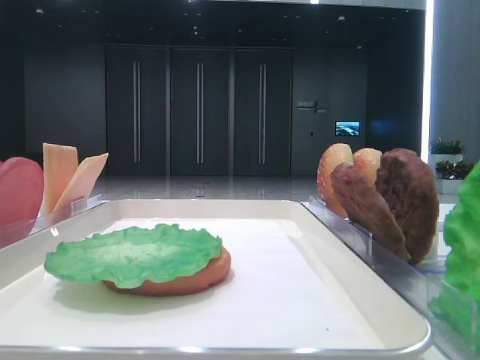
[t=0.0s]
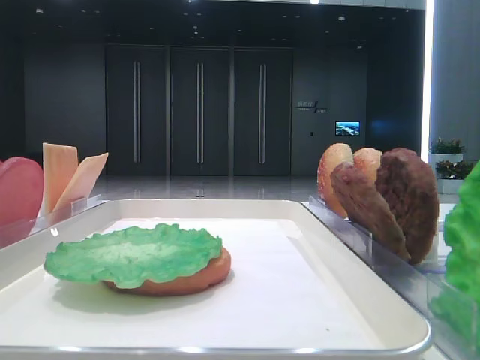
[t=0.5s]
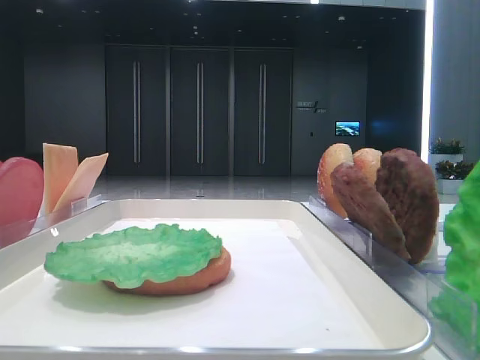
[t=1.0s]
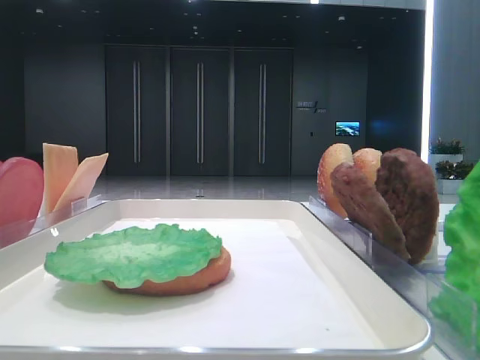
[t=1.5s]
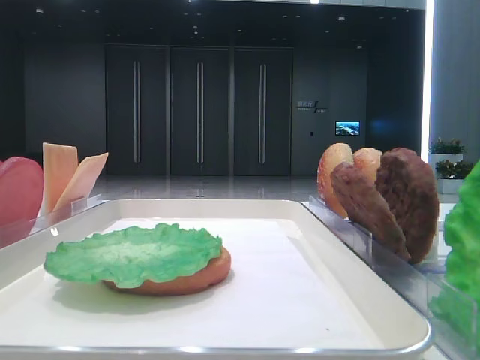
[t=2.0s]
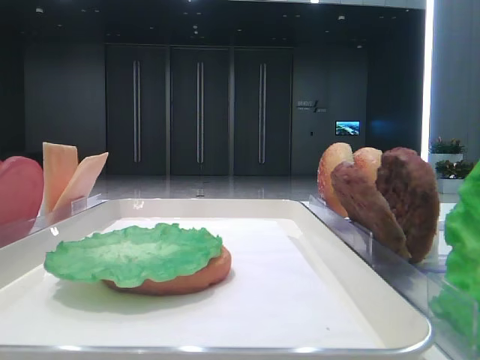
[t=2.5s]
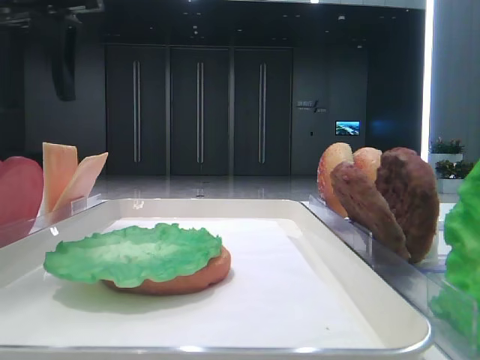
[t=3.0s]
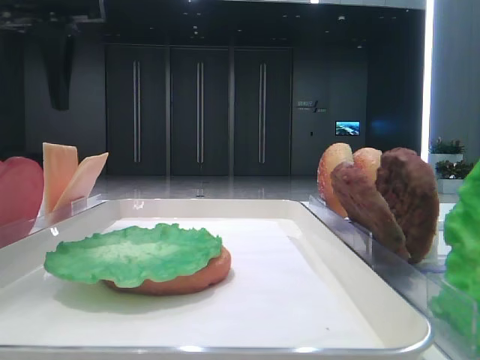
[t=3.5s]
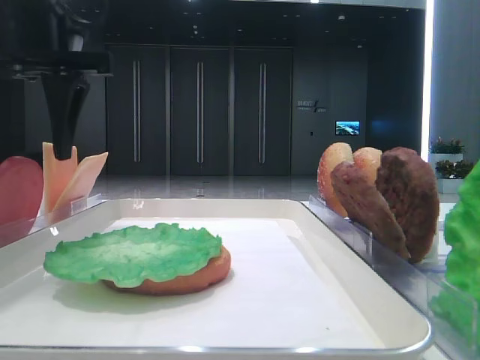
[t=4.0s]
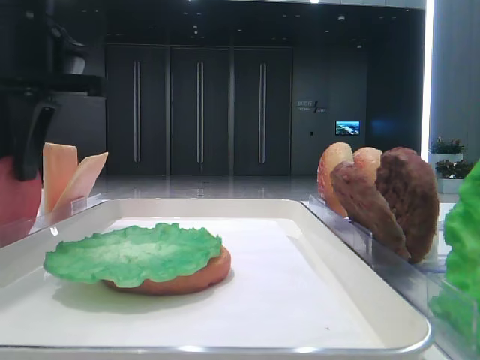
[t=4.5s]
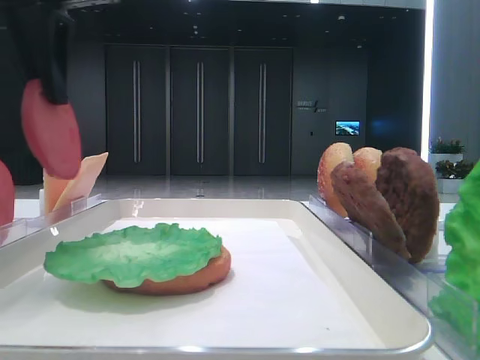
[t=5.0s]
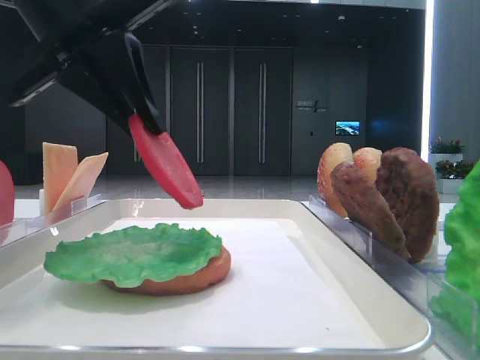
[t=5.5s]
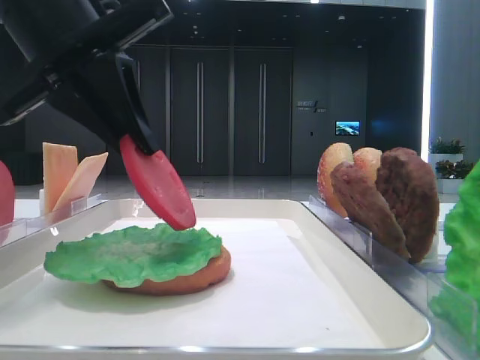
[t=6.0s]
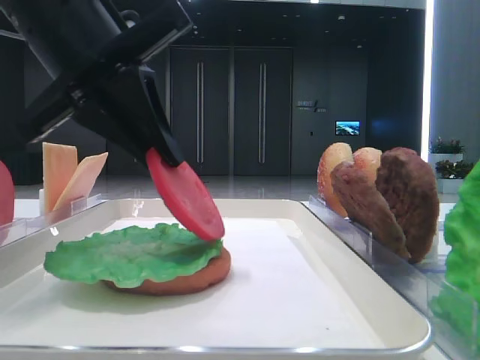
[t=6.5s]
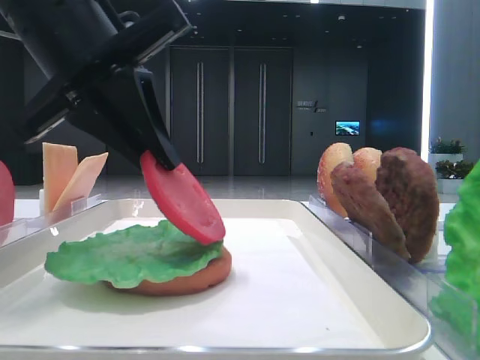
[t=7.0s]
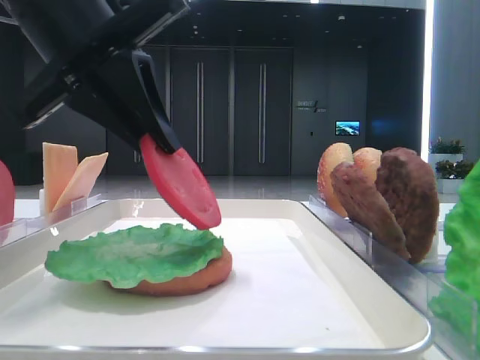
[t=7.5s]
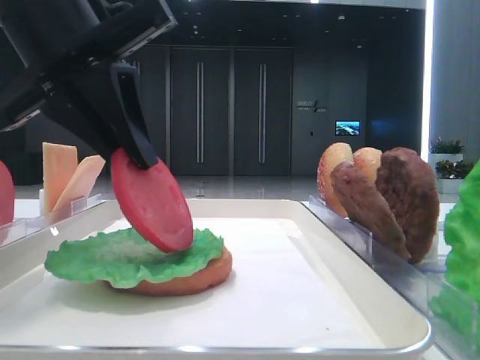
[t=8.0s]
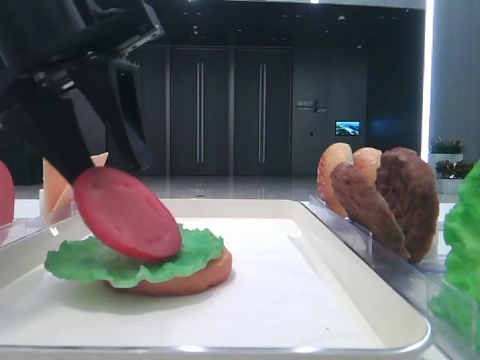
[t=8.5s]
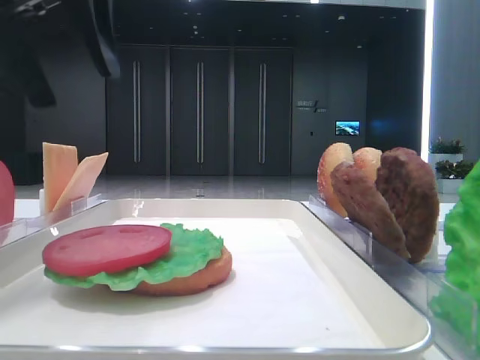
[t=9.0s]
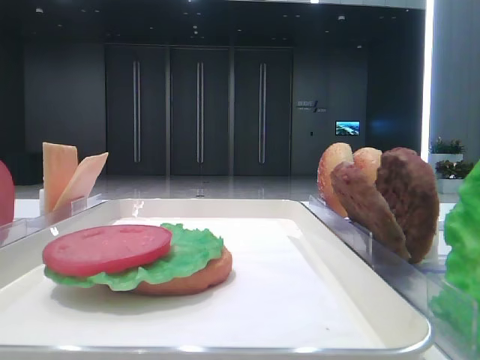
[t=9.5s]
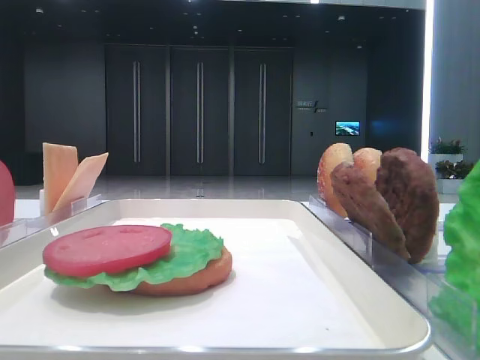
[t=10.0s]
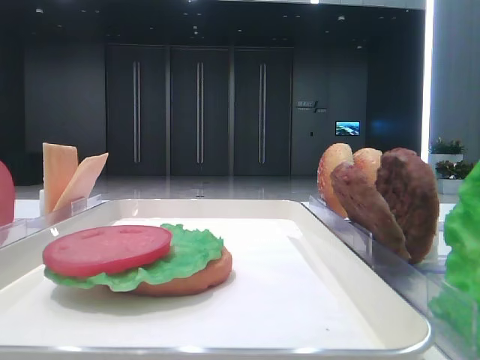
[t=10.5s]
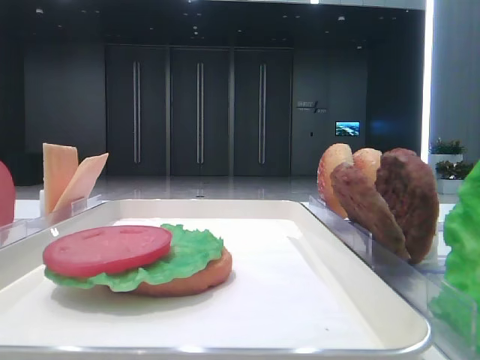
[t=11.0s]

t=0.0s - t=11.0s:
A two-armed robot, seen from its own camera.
Step, t=0.0s - t=4.5s: Pick up the tomato slice with the left hand.
Step, t=5.0s - t=8.5s: Place the tomato slice on the lettuce leaf with the left hand.
t=2.0s - t=3.5s: The left gripper moves forward and to the right, about 25 cm.
t=3.5s - t=5.5s: The left gripper goes up and down, approximately 5 cm each way, reversing 2 times, and closes up.
t=5.5s - t=7.5s: The grippers stay close to where they were, moving slightly.
t=7.5s - t=9.0s: The left gripper is displaced upward by roughly 5 cm, and opens.
t=9.0s - t=11.0s: The left gripper heads backward and to the left, covering approximately 30 cm.

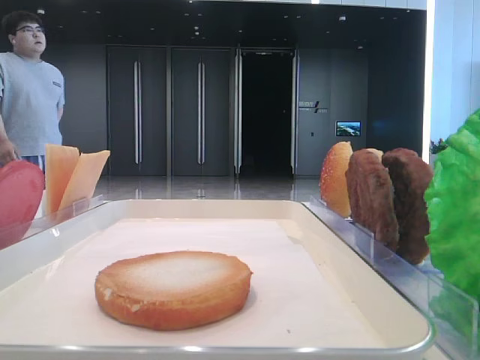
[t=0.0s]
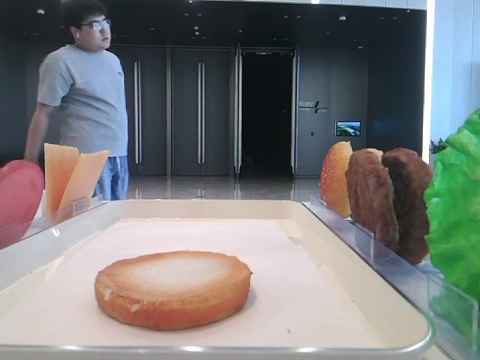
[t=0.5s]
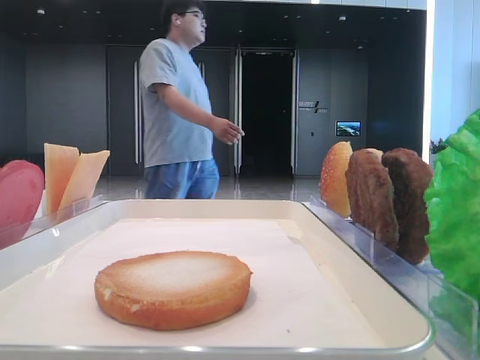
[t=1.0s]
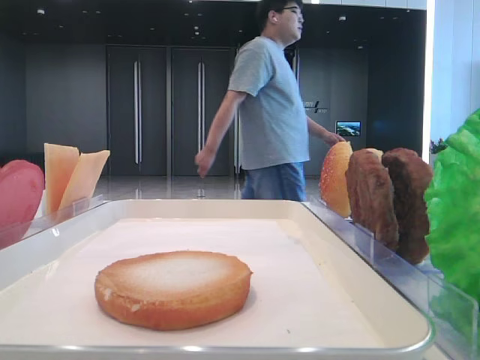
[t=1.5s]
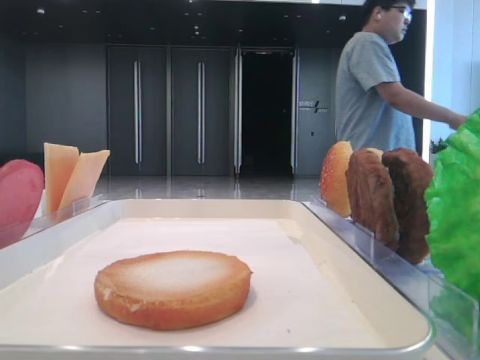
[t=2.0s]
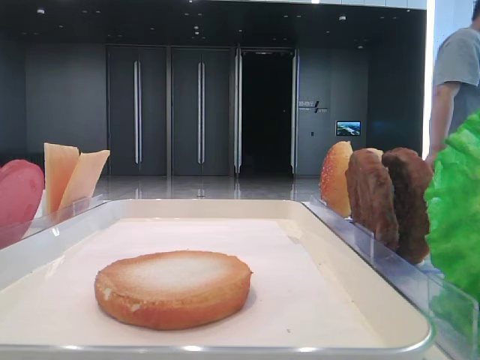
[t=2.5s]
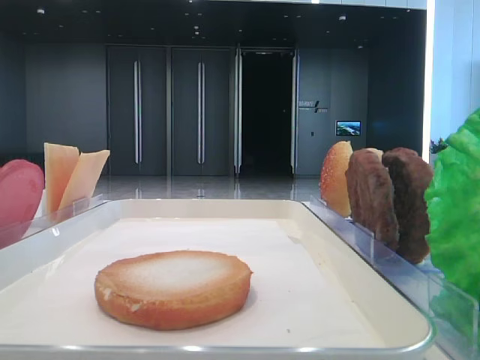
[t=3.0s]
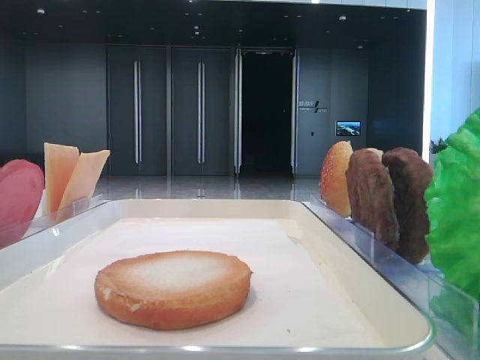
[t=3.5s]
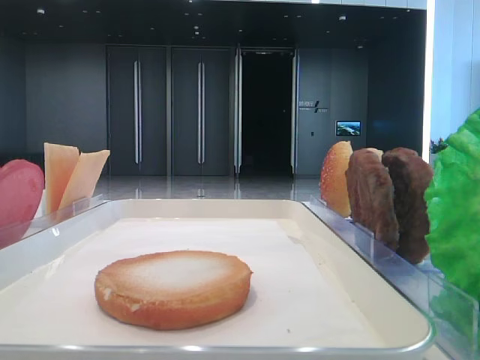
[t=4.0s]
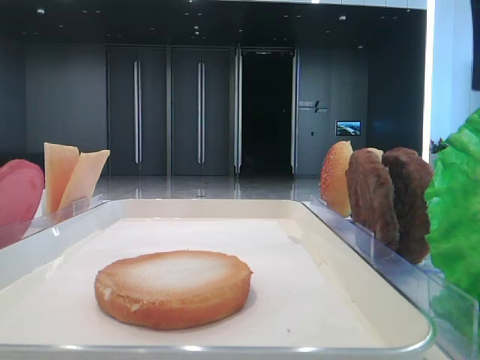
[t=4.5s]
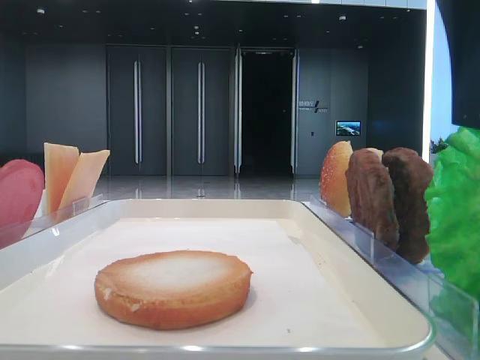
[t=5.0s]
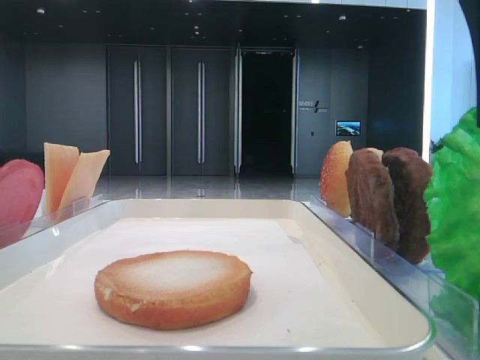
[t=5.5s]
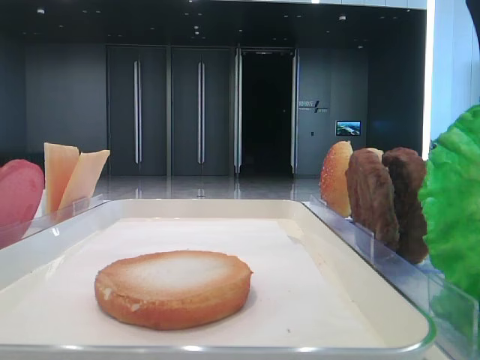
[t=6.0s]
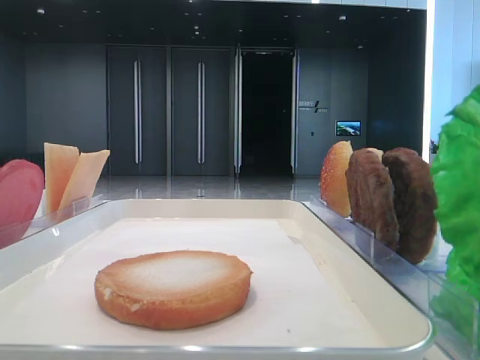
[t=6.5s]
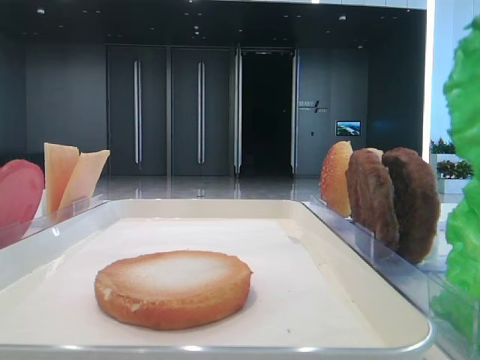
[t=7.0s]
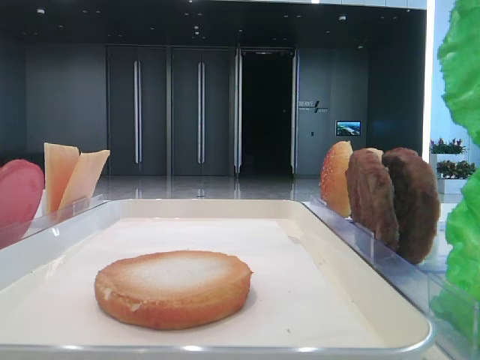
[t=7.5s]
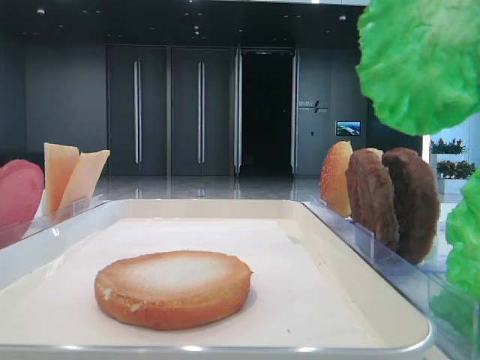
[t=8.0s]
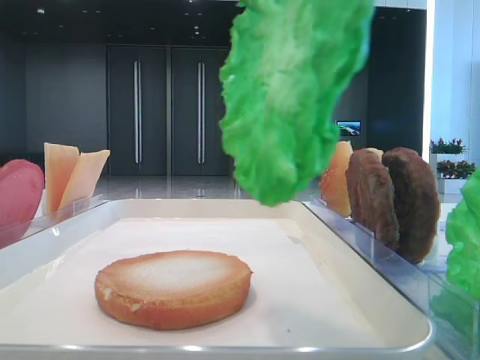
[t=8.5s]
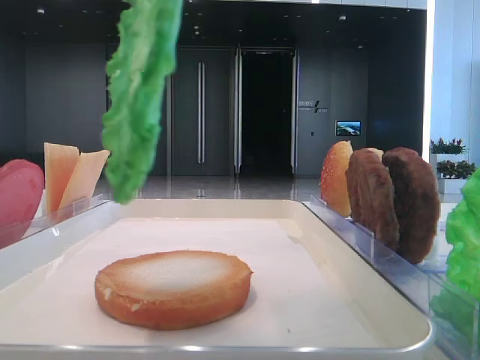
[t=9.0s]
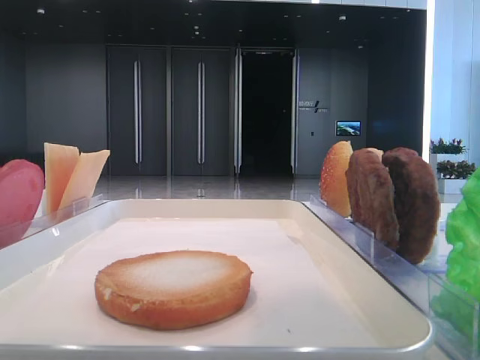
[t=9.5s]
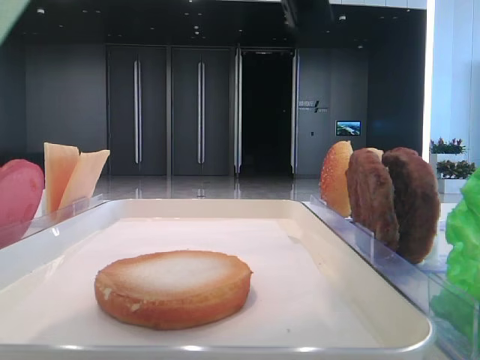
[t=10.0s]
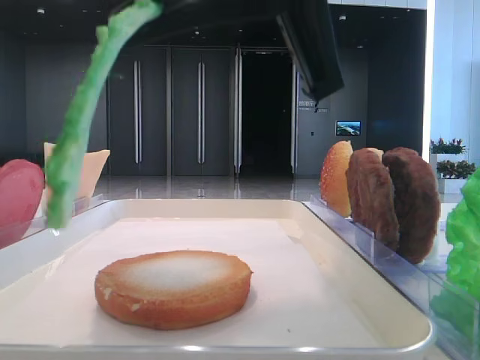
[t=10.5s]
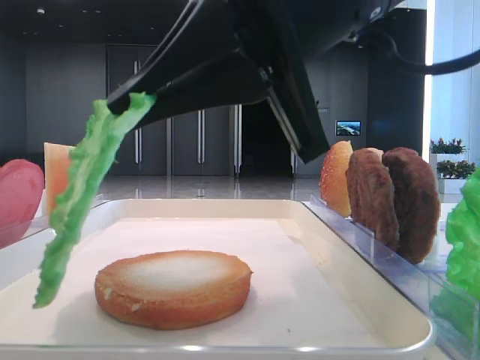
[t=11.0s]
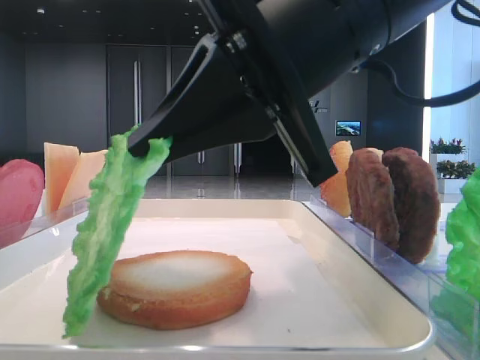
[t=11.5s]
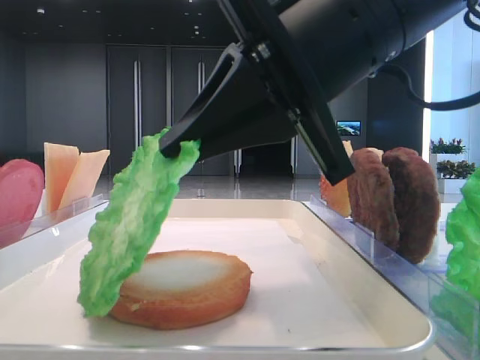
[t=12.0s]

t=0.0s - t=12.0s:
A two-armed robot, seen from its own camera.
Step, t=0.0s - t=5.5s: Grab the lettuce leaf with the right hand.
t=2.0s - t=4.0s: The right gripper moves to the left, approximately 10 cm.
t=4.0s - t=6.0s: The right gripper ends up about 5 cm from where it was, and closes its fingers.
t=6.0s - t=8.0s: The right gripper is displaced upward by some 10 cm.
t=8.0s - t=10.0s: The right gripper travels to the left and downward by about 10 cm.
t=10.0s - t=12.0s: The right gripper moves downward and forward, approximately 10 cm.

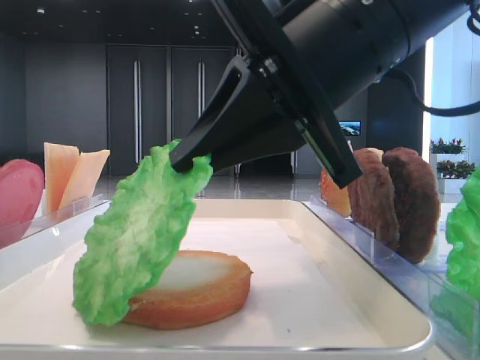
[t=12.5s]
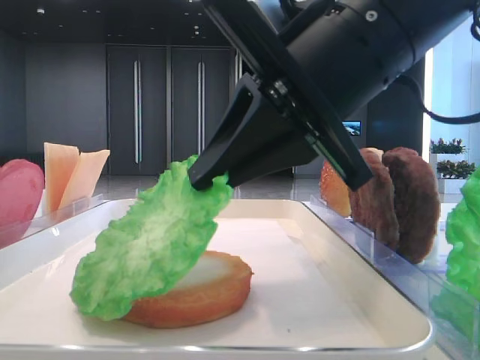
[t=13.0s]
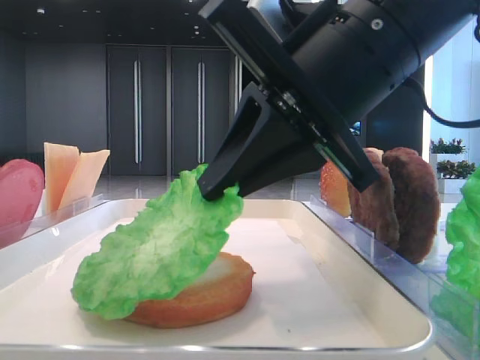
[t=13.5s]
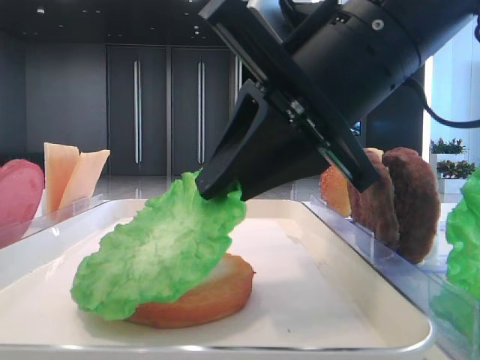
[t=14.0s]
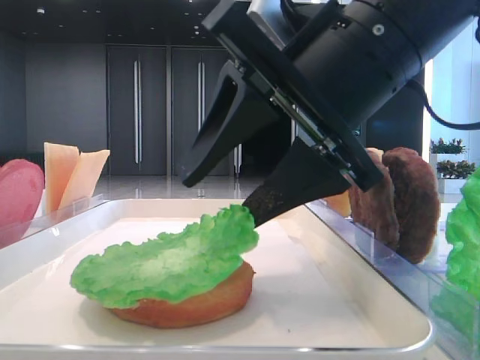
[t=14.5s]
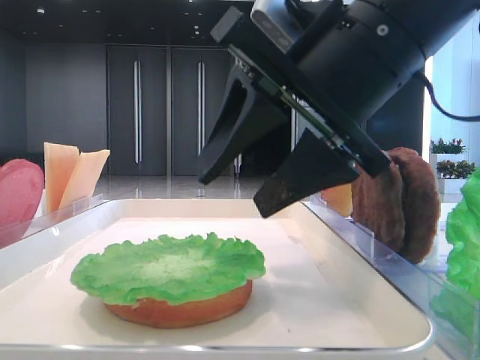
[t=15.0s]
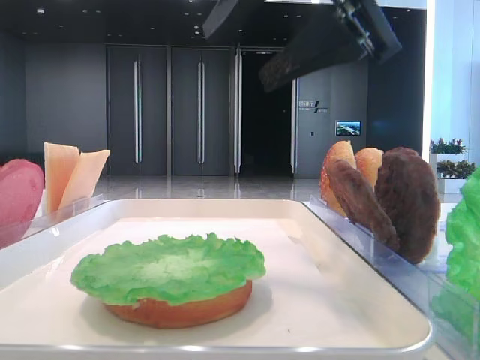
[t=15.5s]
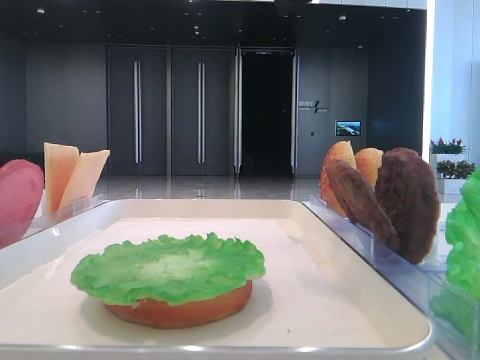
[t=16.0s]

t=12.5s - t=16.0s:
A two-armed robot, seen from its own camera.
Step, t=12.5s - t=14.5s: Place the lettuce leaf on the bottom bread with the right hand.
t=12.5s - t=14.5s: The right gripper opens.
t=14.5s - t=16.0s: The right gripper is displaced upward by some 10 cm.
